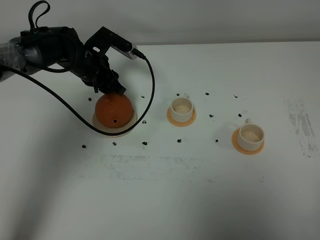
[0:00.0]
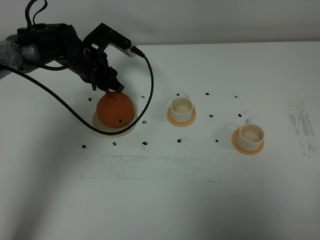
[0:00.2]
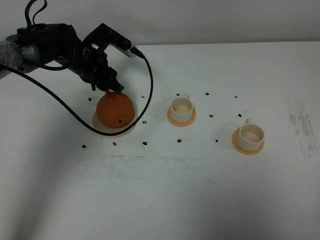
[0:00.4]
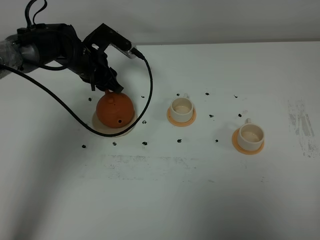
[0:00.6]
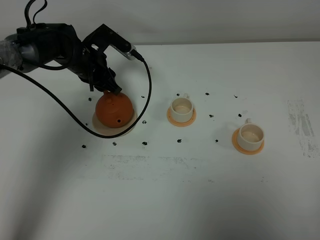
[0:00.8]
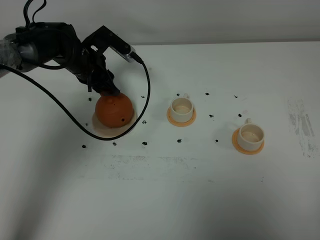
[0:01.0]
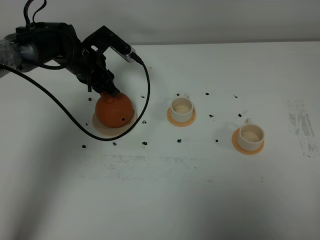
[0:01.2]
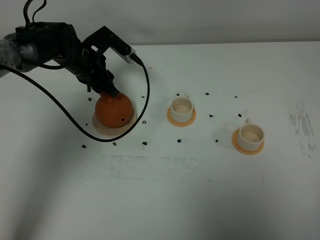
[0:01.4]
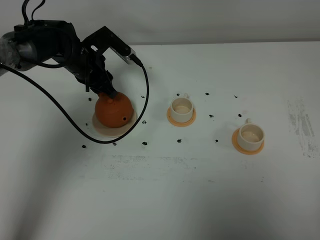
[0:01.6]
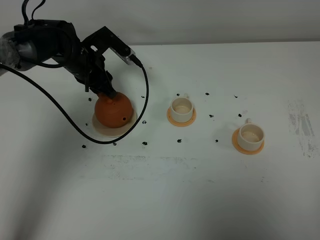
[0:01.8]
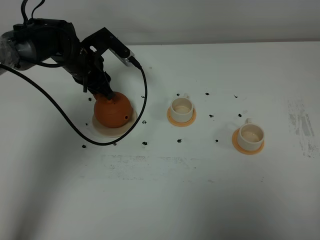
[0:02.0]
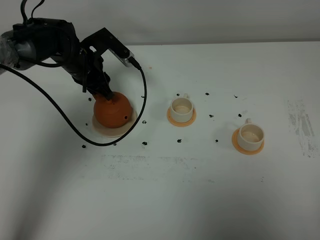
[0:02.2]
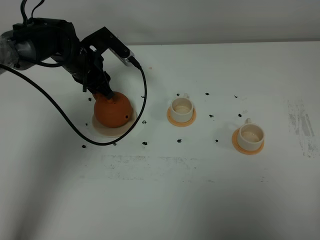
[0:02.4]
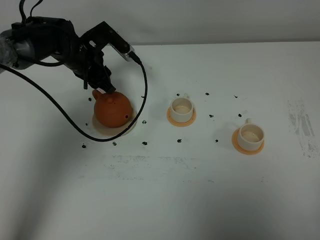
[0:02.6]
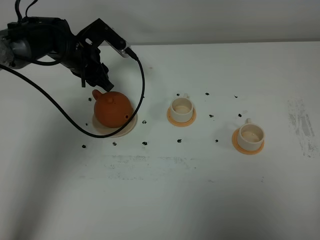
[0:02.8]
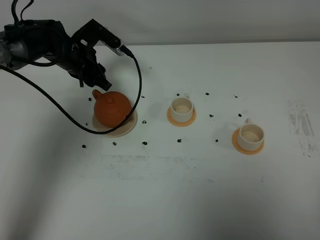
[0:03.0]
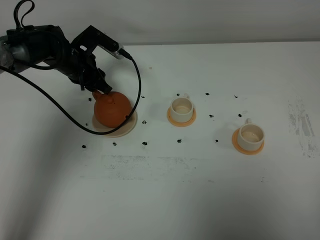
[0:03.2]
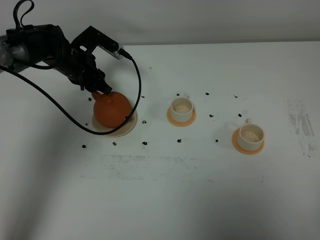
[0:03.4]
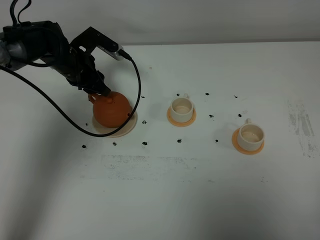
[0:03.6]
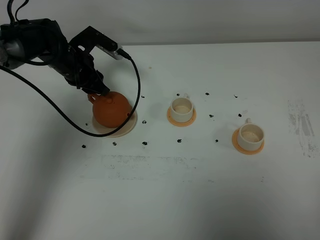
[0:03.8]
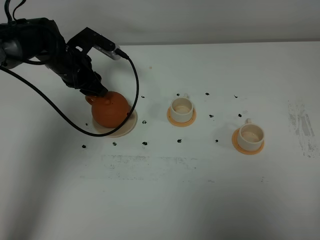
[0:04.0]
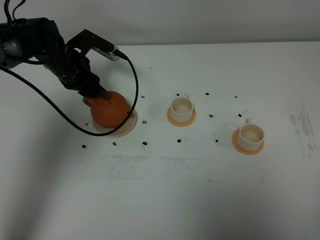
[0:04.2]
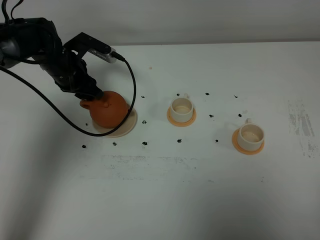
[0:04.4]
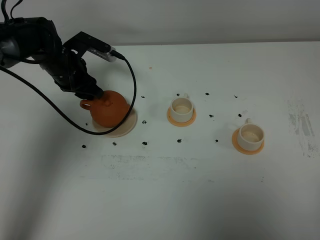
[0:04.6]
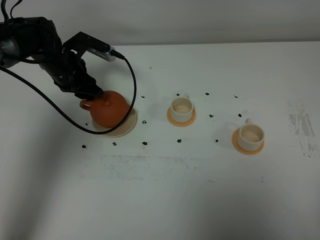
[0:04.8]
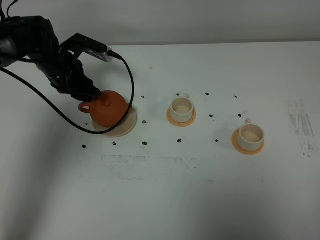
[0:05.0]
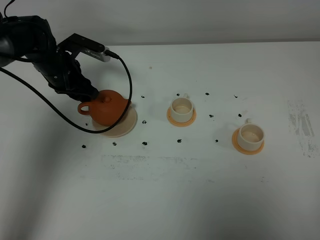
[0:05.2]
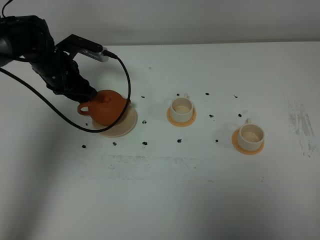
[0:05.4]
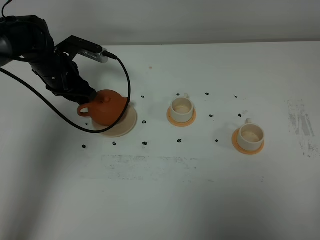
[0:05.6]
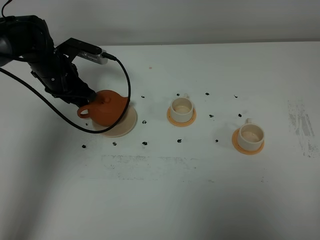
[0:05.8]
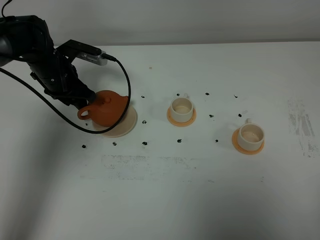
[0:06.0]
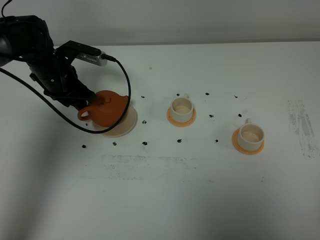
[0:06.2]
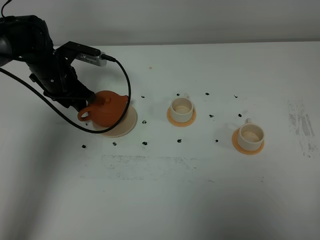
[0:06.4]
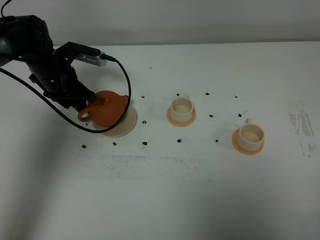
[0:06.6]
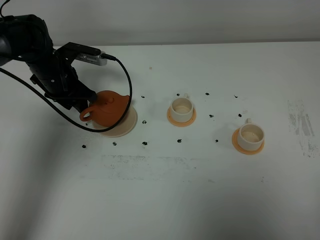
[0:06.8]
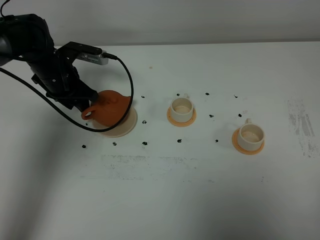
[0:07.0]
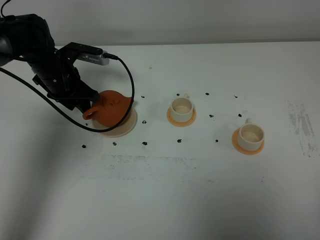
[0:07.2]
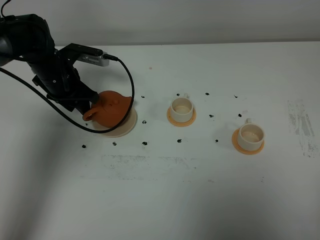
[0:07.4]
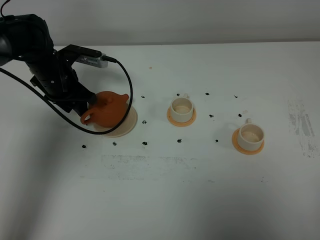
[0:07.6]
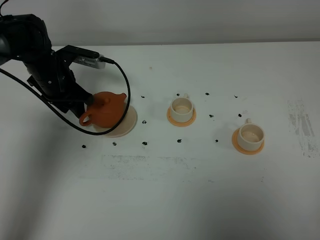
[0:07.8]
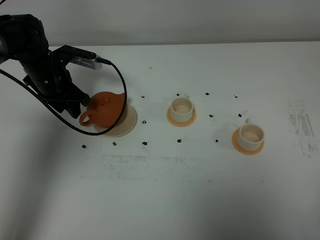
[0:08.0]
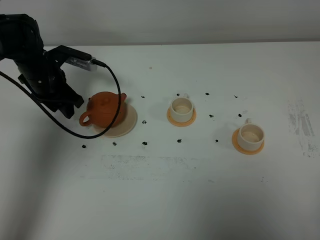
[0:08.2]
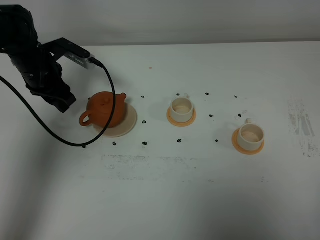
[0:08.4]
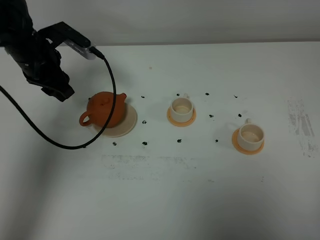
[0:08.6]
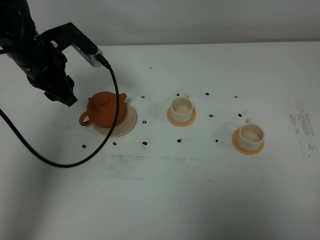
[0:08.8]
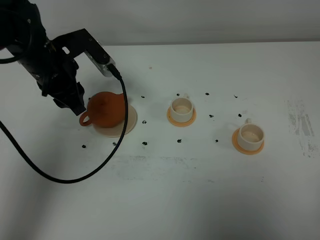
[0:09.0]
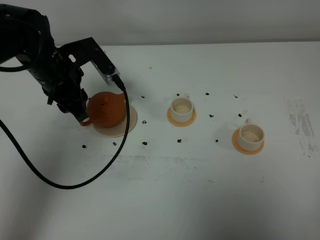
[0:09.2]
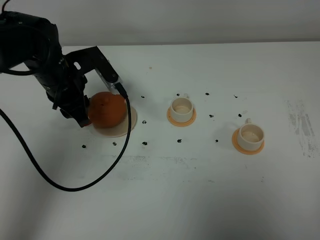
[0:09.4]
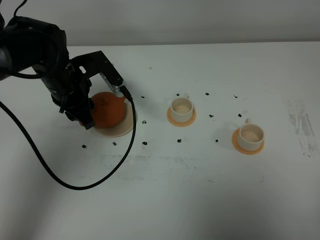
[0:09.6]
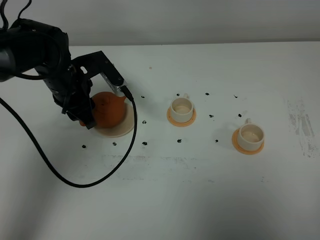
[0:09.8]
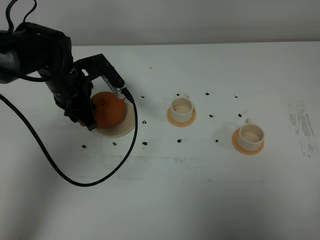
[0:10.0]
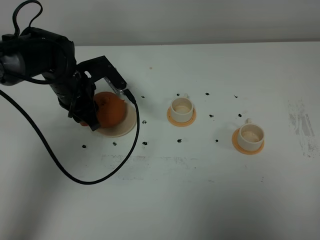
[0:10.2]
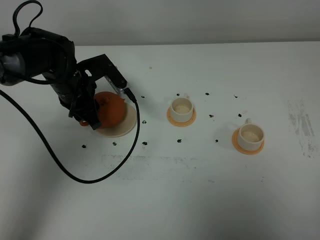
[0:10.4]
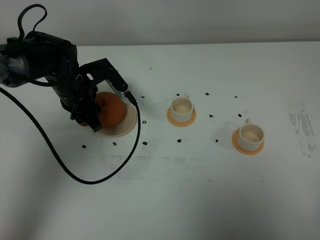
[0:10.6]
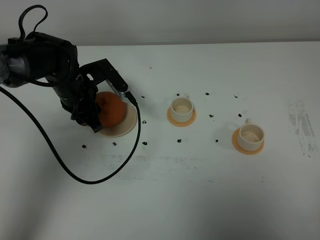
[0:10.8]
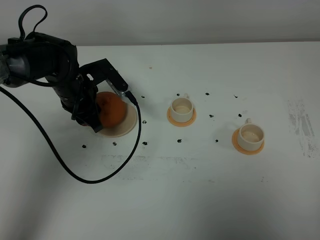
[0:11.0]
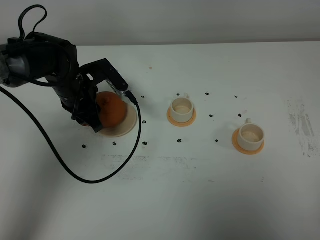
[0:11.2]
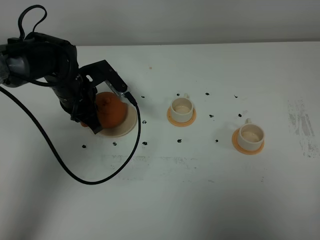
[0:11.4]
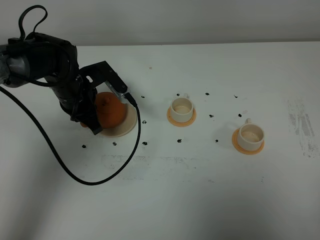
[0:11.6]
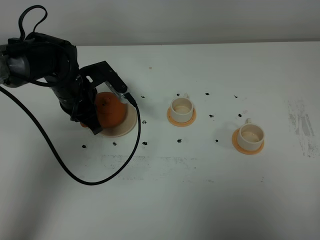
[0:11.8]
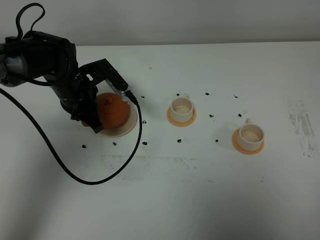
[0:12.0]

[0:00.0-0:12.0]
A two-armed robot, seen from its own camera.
Task of the whole recording: grasp the brown teapot and pour the tea into the two white teacups one by one, put the brown teapot back in its original place.
0:00.0 to 0:04.4: The grippers make only small movements.
0:04.4 to 0:07.6: There are only small adjustments of the grippers.
0:07.6 to 0:09.0: The left gripper shifts some 10 cm upward and backward.
0:09.0 to 0:10.4: The left gripper goes roughly 5 cm downward.
0:10.4 to 0:12.0: The left gripper closes its fingers.

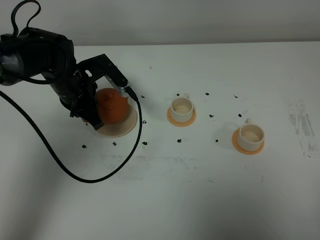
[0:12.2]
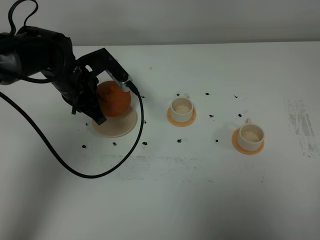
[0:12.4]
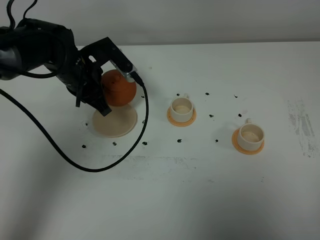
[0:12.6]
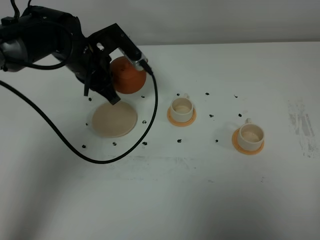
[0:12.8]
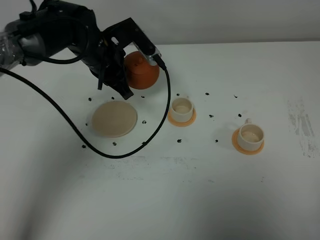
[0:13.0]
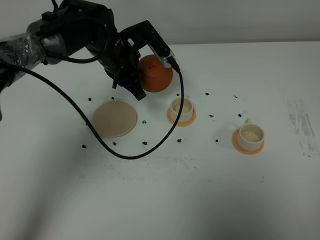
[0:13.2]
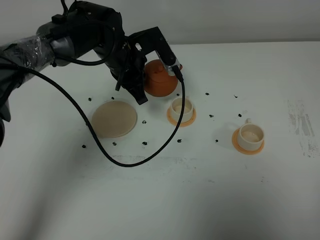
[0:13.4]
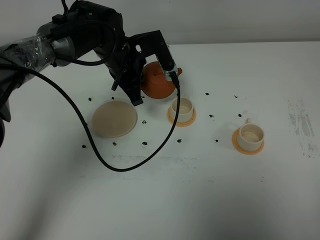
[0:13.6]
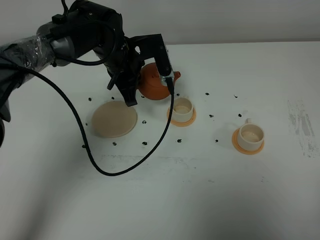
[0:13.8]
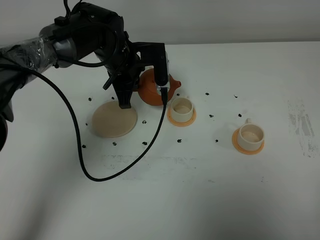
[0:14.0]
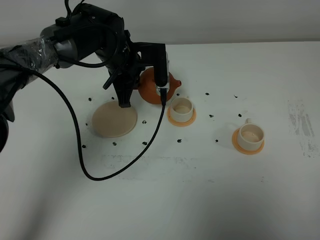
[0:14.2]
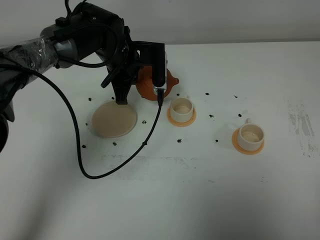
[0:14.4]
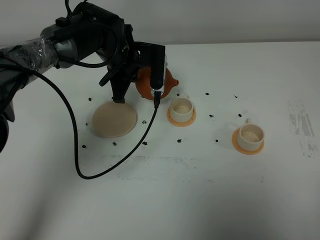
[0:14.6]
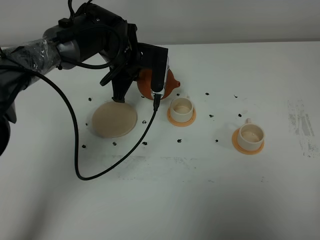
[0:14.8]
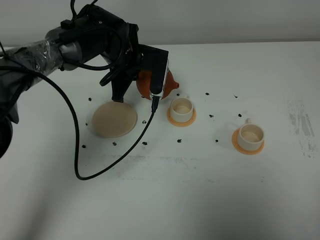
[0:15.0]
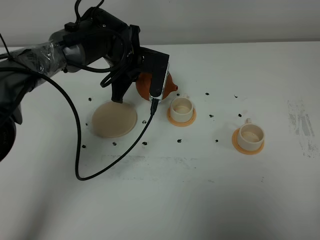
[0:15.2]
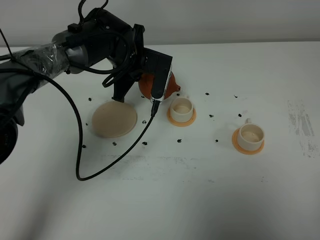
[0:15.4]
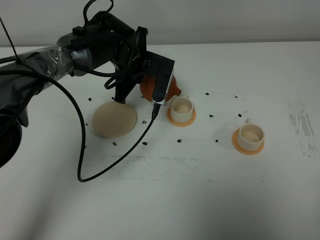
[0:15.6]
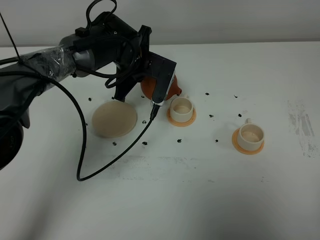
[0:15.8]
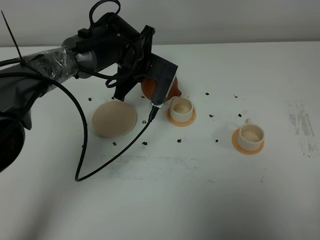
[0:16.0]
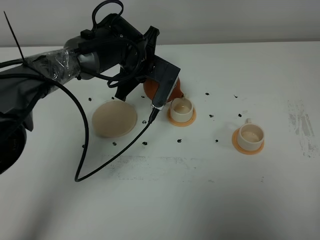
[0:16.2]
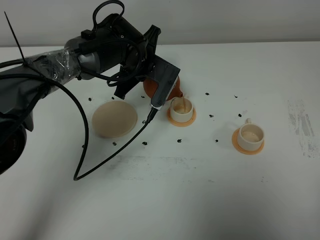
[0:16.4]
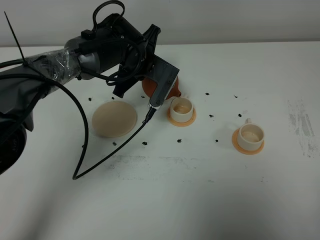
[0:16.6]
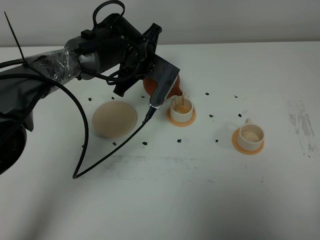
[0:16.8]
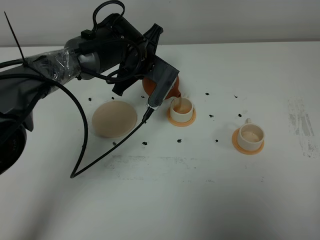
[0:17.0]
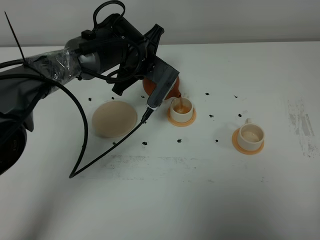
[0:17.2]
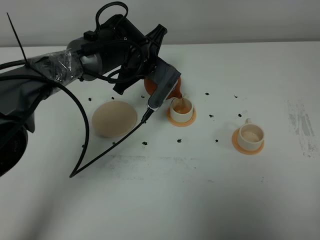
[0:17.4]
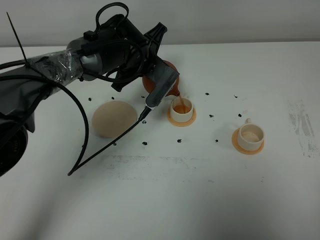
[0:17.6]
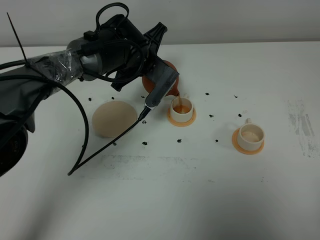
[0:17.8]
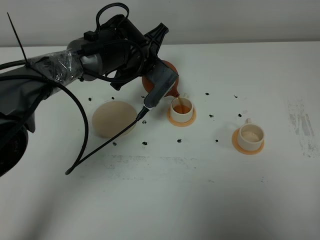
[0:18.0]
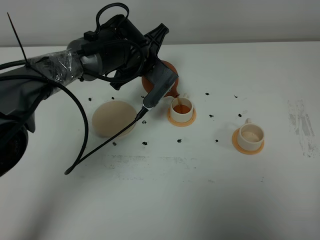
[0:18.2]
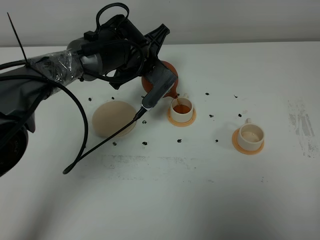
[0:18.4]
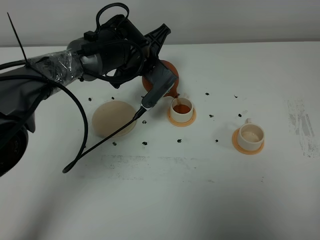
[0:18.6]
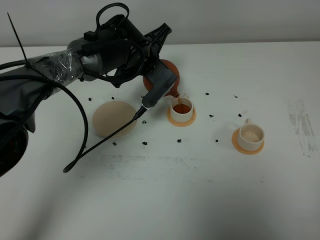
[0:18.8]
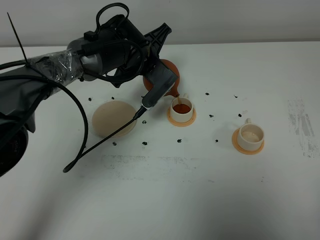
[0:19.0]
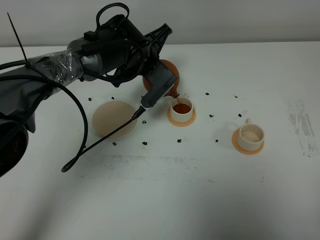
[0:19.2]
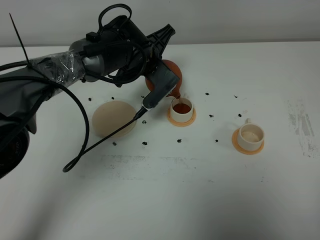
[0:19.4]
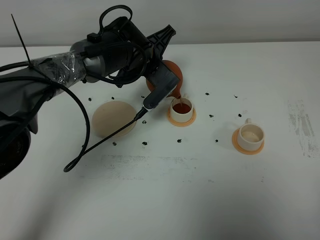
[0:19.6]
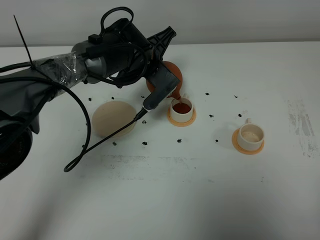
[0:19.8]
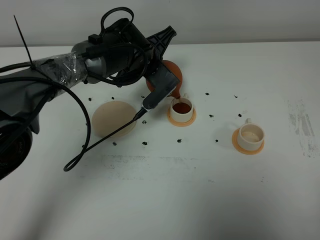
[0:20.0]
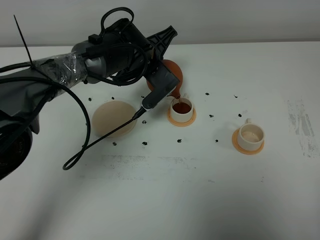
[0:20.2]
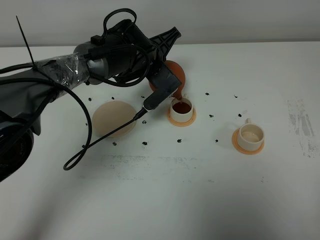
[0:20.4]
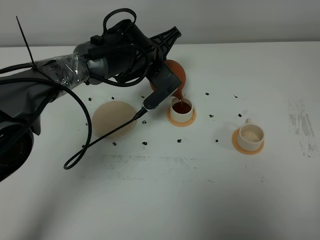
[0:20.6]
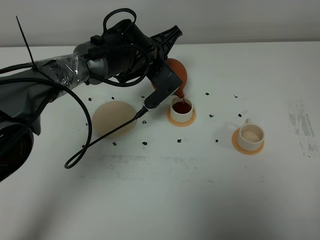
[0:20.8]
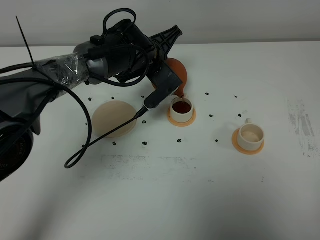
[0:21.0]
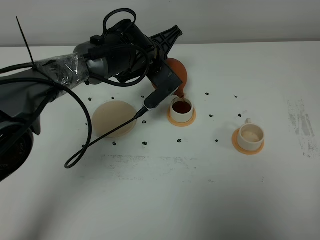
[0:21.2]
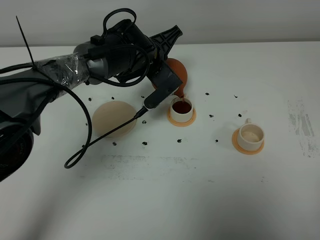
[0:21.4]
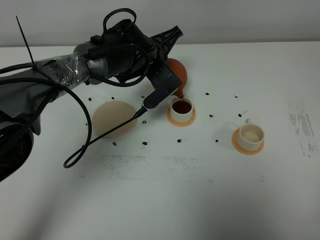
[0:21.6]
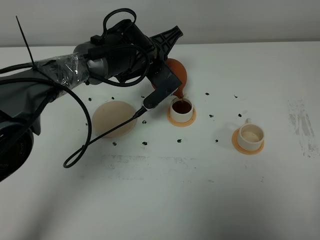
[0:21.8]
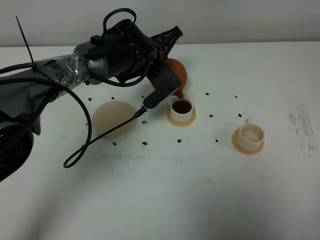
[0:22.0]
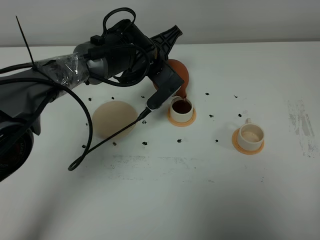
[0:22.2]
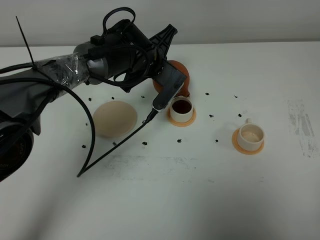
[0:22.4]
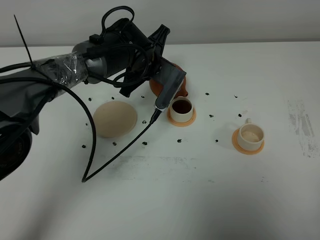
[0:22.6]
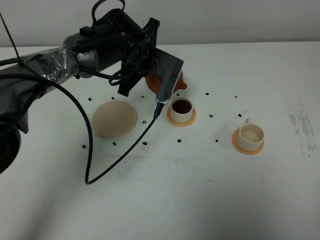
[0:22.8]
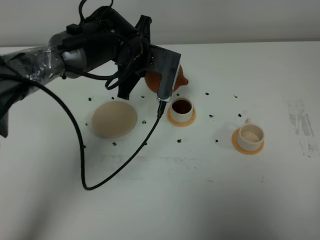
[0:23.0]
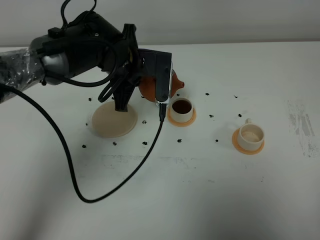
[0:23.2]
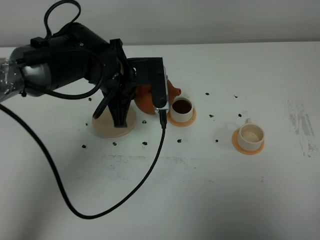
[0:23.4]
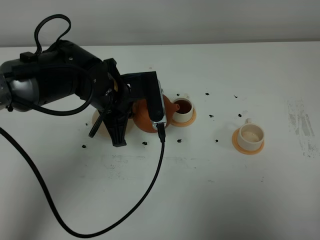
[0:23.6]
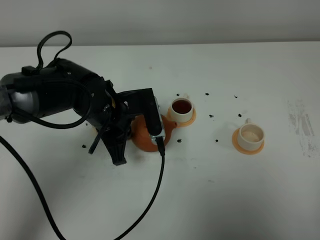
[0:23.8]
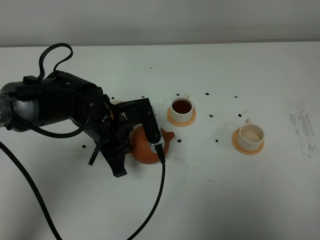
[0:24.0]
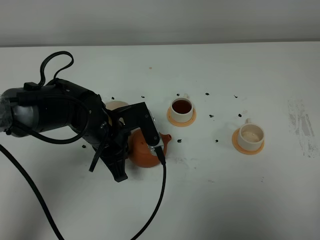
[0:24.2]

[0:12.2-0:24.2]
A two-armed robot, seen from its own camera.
Task of the whole recording: grasp the brown teapot and pour the tea into the two white teacups one by one, put the brown teapot back in its original place.
Step, 0:12.4 to 0:22.6: Pour tea into the teacup with the left gripper.
0:12.2 to 0:13.8: The left gripper shifts about 10 cm to the right.
0:15.2 to 0:16.6: The grippers stay close to where they were, moving slightly.
0:16.6 to 0:19.8: The grippers make only small movements.
0:19.8 to 0:21.2: The two grippers keep their place.
0:22.6 to 0:24.2: The left gripper shifts roughly 15 cm backward and to the left.
